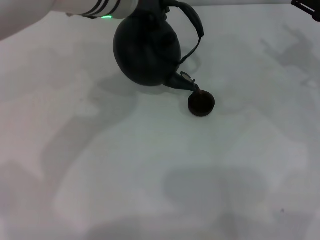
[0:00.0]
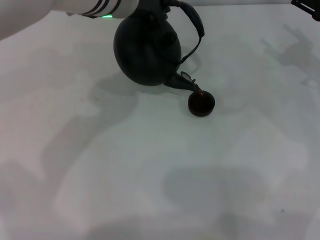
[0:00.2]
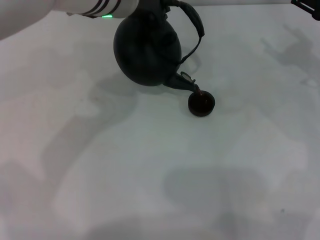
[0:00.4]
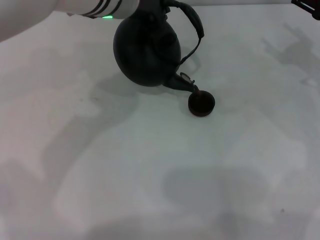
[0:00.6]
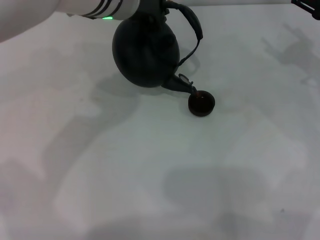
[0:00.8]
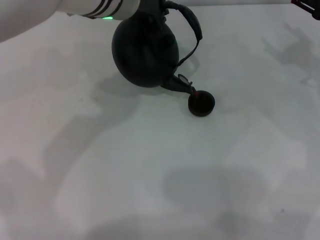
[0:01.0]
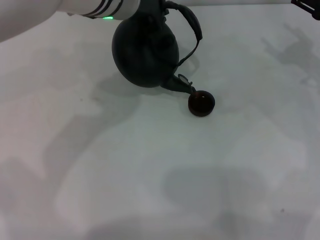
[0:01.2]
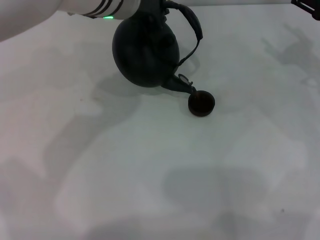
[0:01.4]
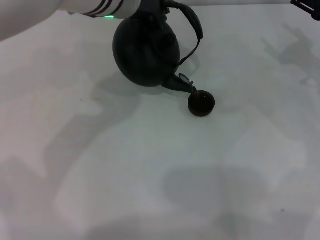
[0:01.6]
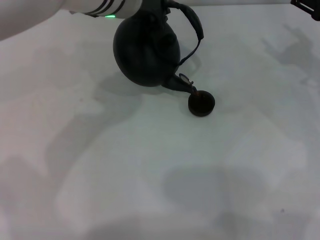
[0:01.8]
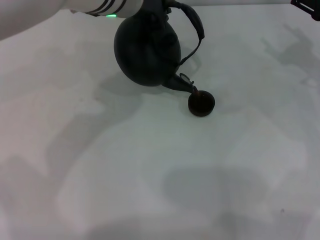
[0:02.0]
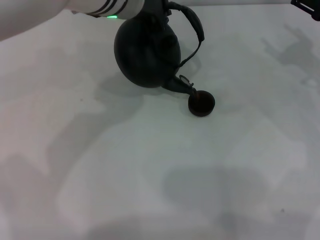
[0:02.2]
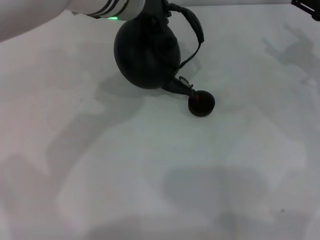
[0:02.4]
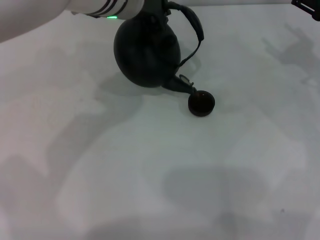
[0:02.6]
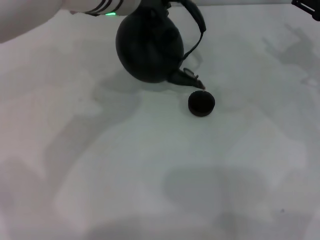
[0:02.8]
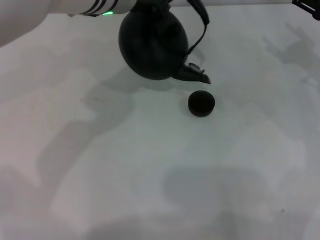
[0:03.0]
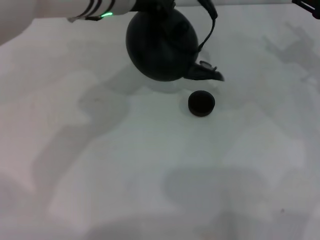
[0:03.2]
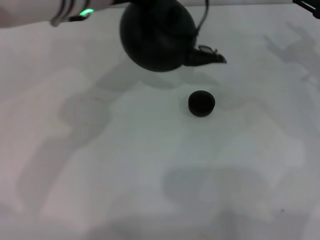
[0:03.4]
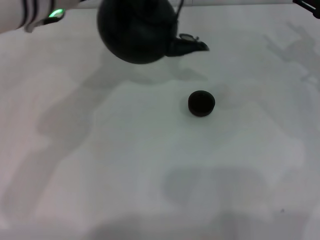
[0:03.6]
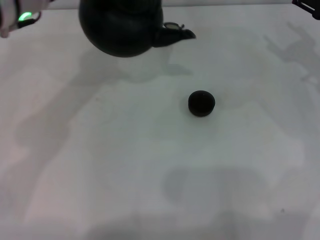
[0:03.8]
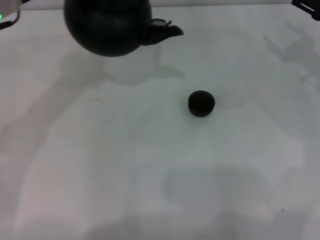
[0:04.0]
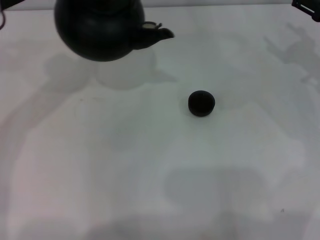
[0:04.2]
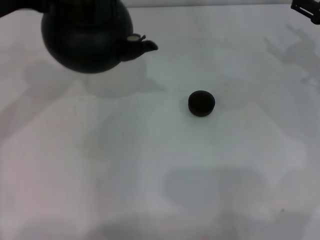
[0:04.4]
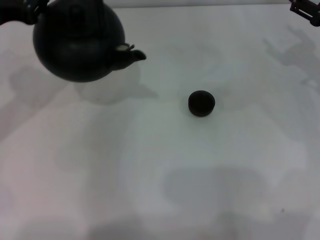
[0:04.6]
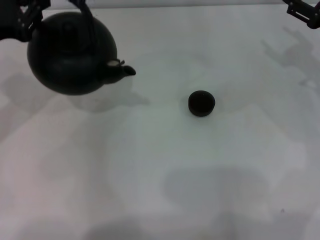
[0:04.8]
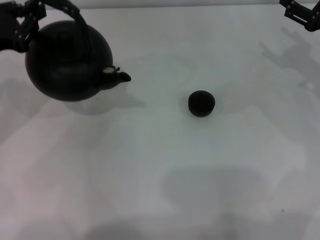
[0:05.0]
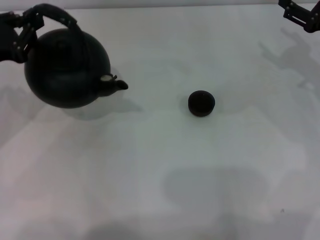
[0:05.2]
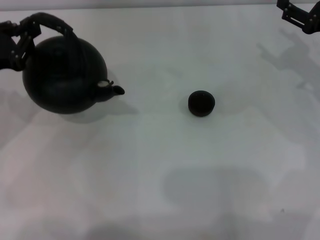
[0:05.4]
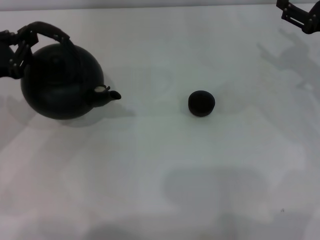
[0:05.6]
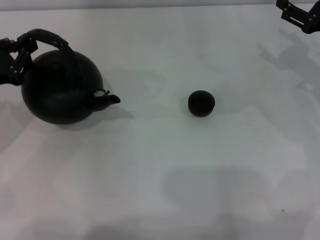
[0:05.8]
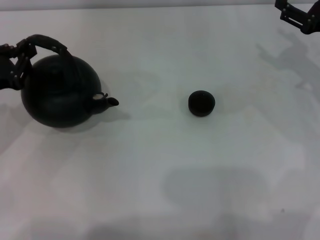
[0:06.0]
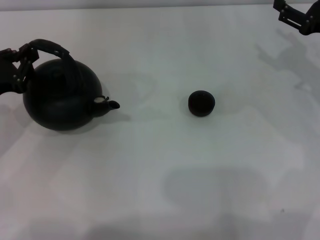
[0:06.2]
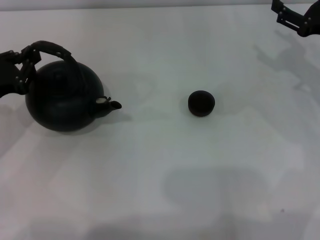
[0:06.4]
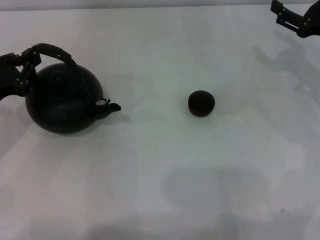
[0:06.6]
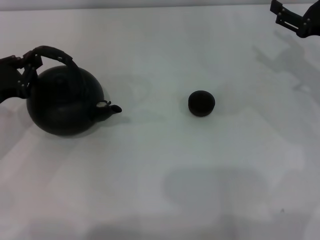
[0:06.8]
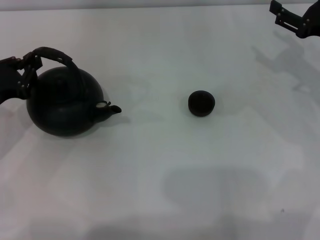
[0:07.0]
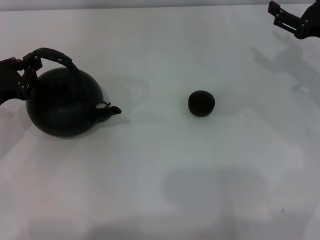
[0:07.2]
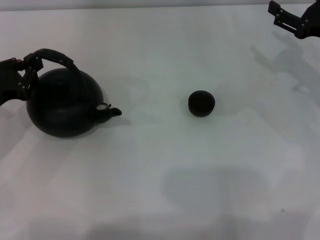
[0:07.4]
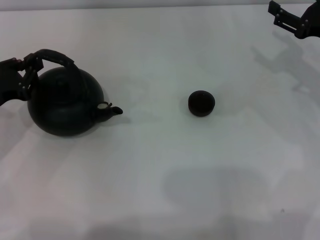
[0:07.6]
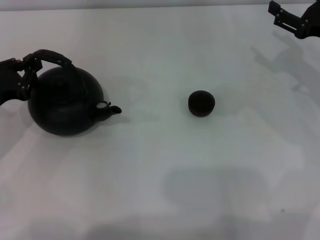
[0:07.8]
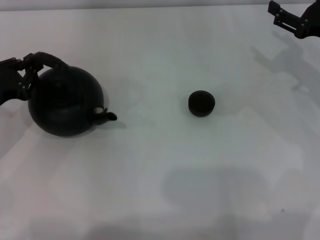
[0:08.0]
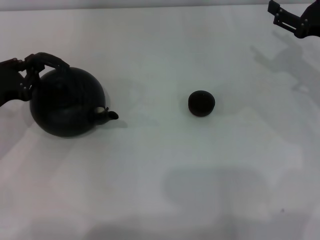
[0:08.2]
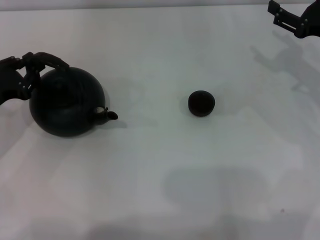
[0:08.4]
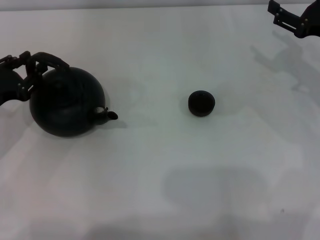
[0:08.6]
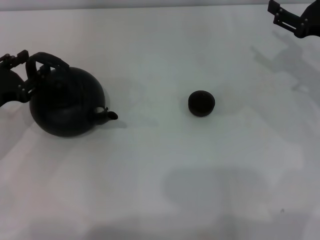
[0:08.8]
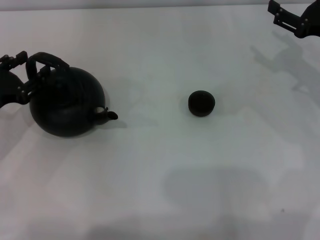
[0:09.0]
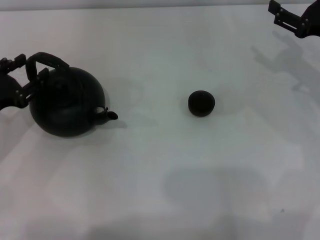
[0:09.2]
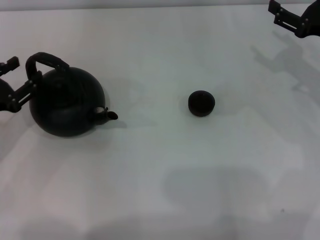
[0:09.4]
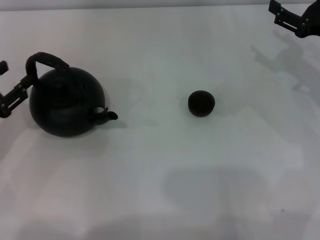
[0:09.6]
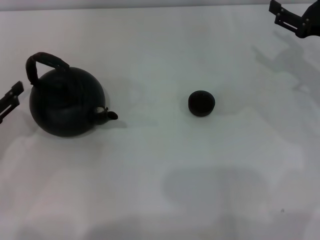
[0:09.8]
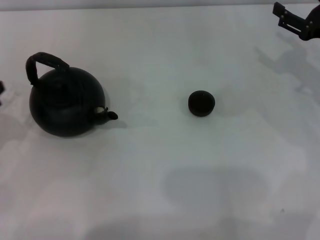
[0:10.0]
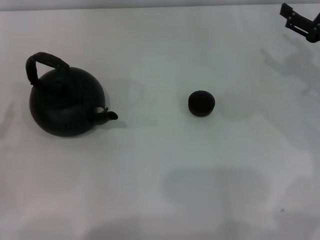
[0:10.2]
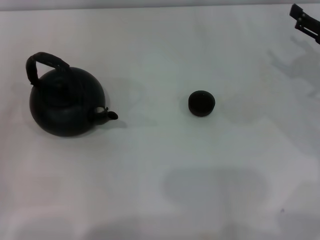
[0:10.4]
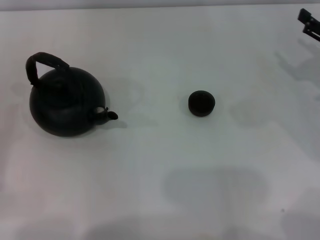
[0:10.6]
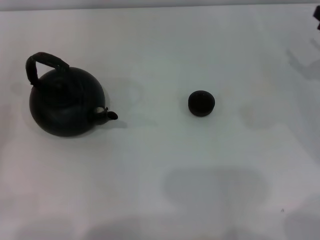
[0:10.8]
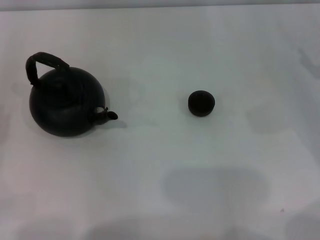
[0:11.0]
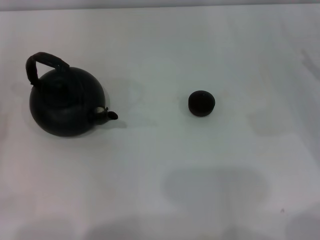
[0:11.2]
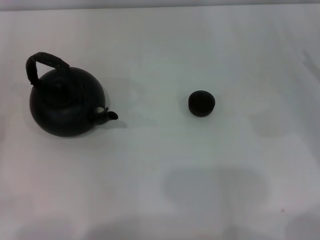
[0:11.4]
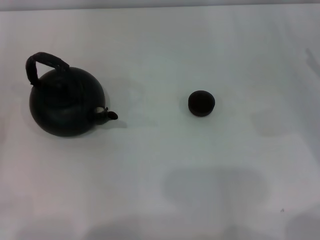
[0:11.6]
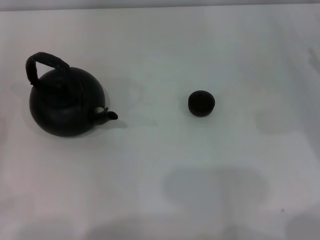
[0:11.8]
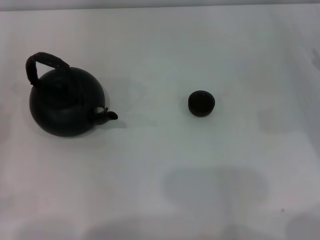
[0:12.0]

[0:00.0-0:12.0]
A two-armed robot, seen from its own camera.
Task of the whole recording: Grasp the handle of the teapot with one hand and pour tea into the teacup.
Step, 0:00.0 to 0:03.2: Pour tea into the teacup with the left gripper.
Step, 0:03.4 to 0:09.6: Put down the teapot with the left gripper.
0:00.0 to 0:01.6: Neither gripper changes place.
0:01.6 to 0:03.0: The grippers move only a little.
0:03.0 to 0:04.4: The left gripper travels to the left by some 20 cm.
0:04.4 to 0:06.0: The left gripper moves downward and to the left, roughly 15 cm.
0:06.0 to 0:07.6: The grippers move only a little.
0:07.6 to 0:09.0: The left gripper opens up.
0:09.0 to 0:10.4: The left gripper travels backward and to the left by roughly 15 cm.
0:10.4 to 0:12.0: The right gripper changes place by about 5 cm.
